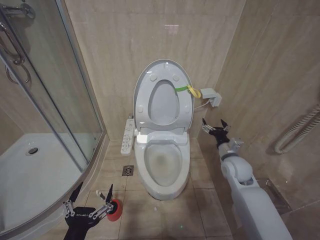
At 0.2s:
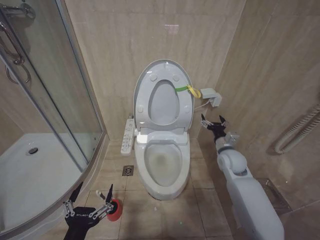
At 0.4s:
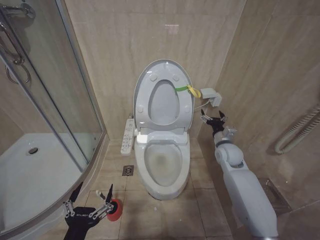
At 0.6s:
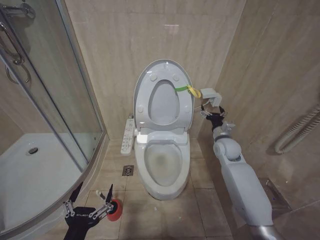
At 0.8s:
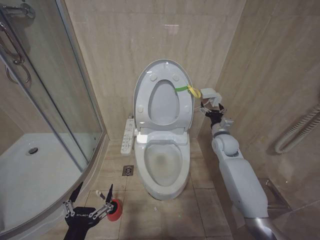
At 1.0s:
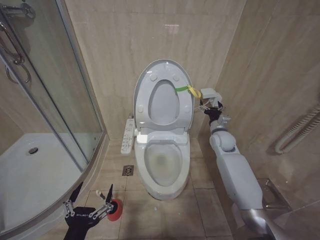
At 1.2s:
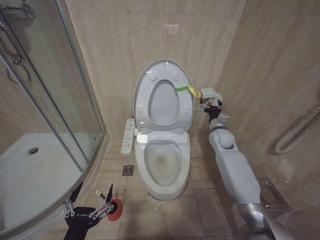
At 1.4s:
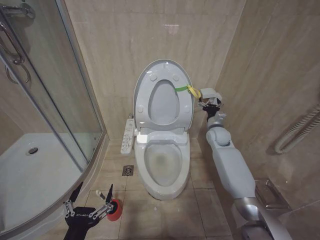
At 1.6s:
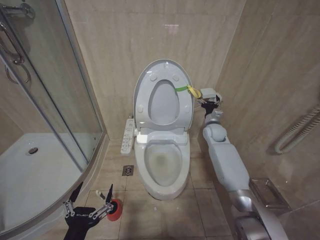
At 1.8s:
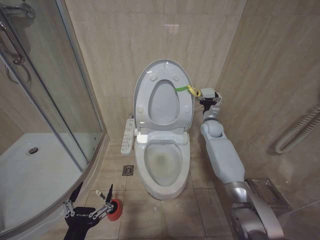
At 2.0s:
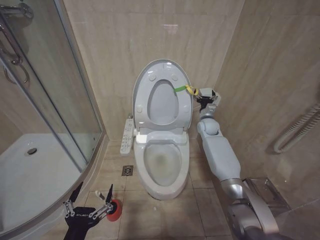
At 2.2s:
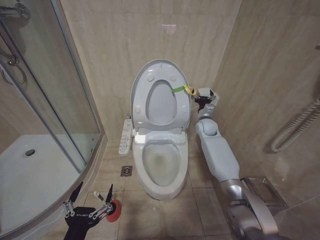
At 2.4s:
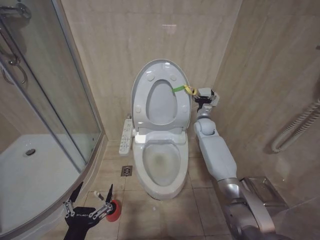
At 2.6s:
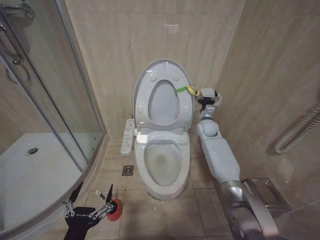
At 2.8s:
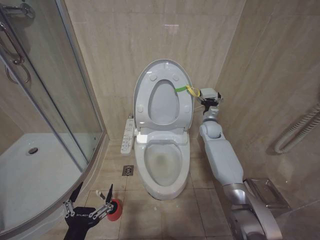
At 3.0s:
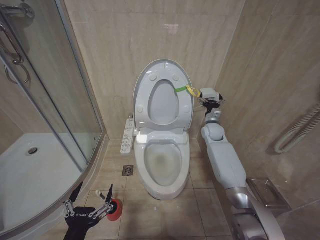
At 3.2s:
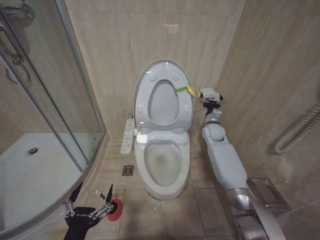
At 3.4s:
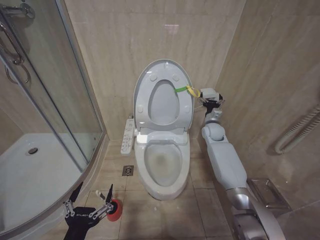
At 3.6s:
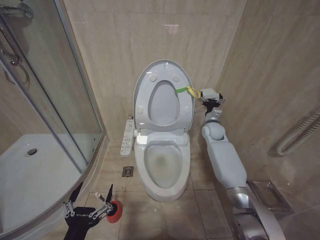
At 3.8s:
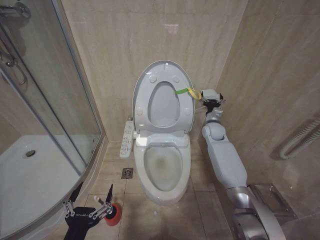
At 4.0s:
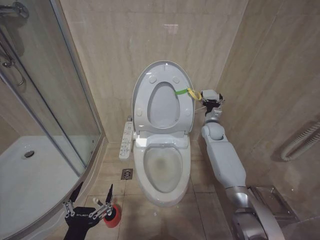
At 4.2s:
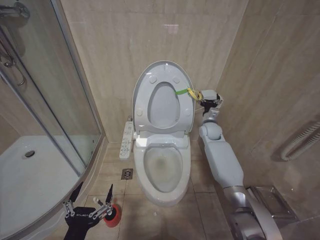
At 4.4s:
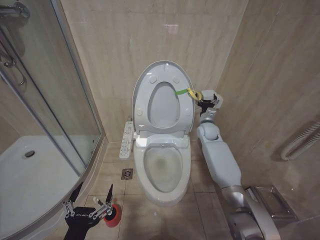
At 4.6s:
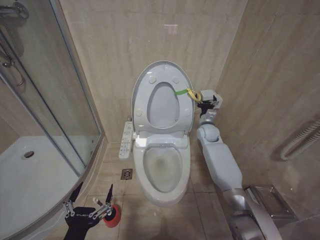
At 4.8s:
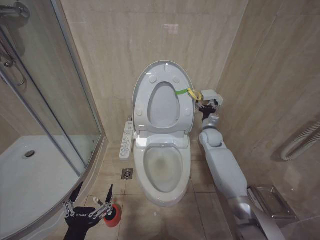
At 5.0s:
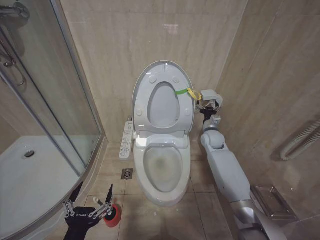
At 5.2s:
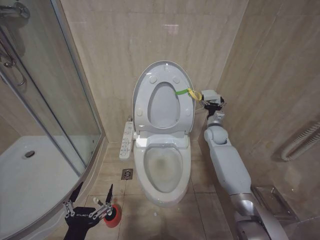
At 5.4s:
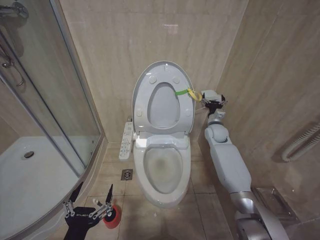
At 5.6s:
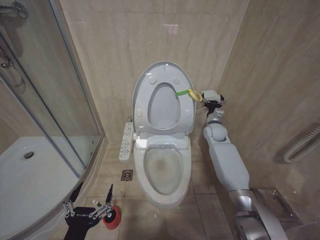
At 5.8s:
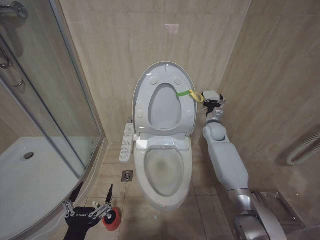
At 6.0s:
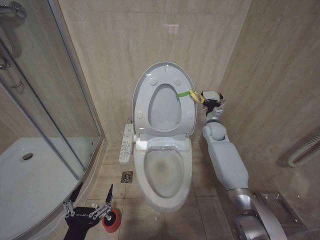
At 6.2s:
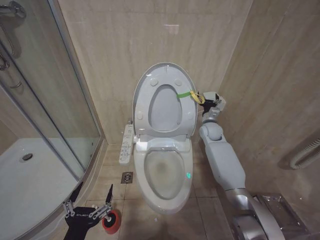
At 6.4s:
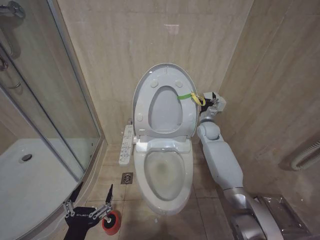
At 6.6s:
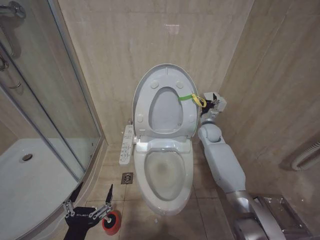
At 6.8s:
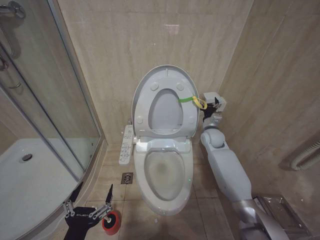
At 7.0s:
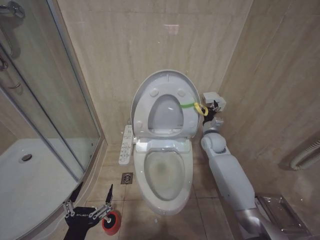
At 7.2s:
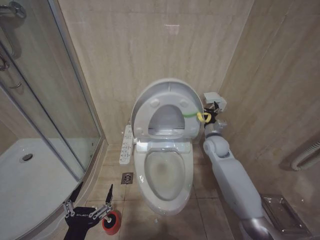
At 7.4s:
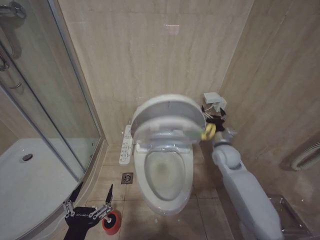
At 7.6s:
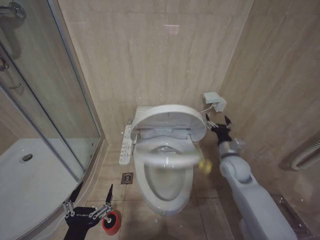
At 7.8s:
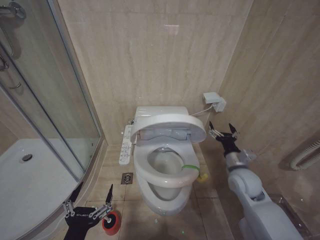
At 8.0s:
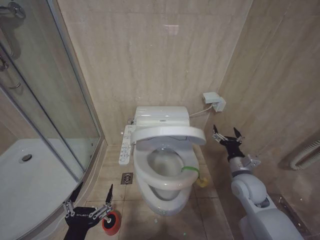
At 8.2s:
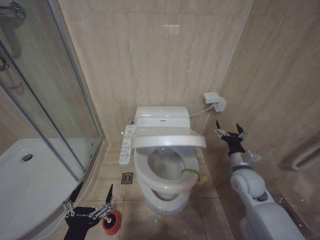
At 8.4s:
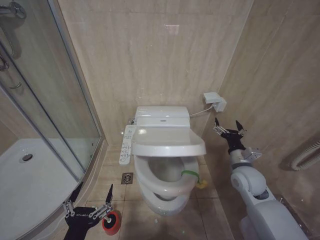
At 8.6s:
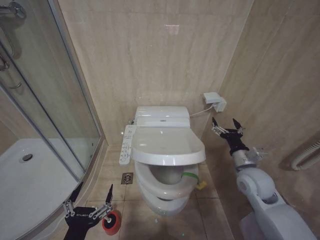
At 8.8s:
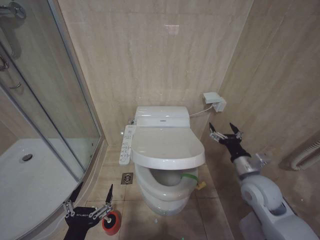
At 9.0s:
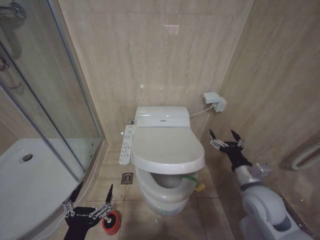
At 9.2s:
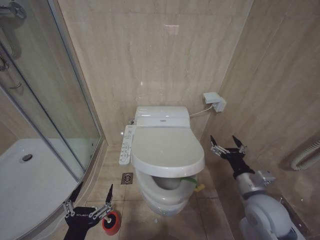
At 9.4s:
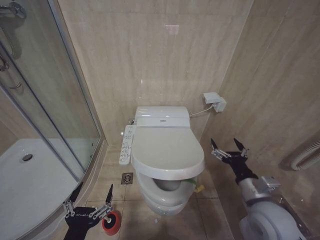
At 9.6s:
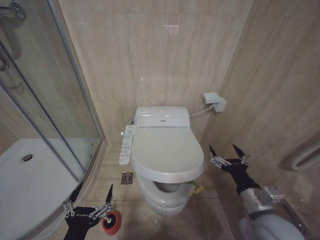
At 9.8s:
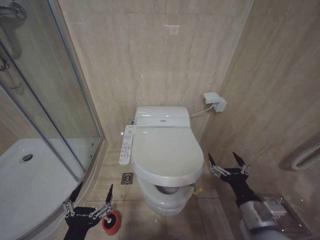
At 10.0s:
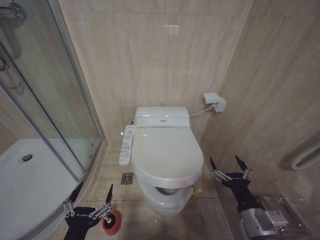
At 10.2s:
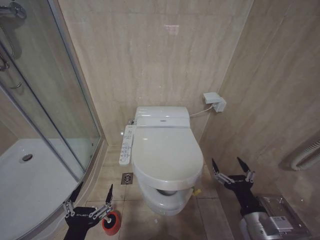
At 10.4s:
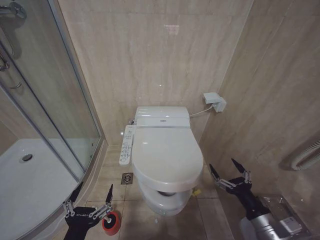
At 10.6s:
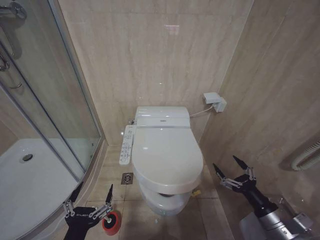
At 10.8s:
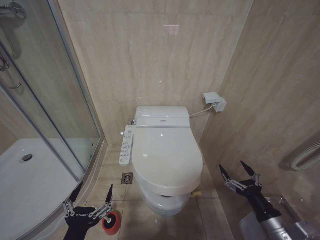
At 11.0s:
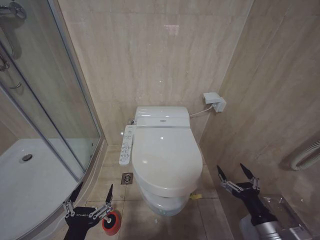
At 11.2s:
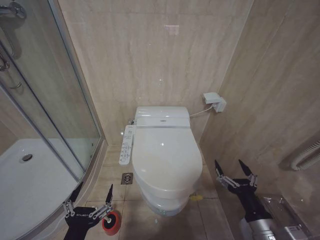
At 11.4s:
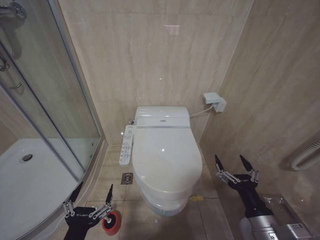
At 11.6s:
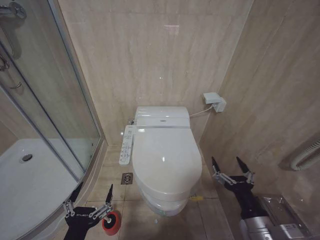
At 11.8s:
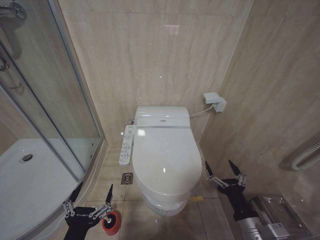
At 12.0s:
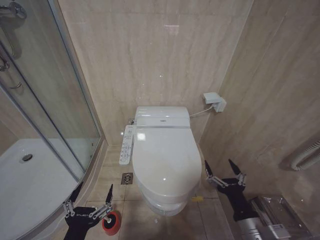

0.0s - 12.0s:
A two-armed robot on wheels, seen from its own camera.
Task of the whole recording: Open the toilet lid, clean the toilet bowl with a toilet brush, close the toilet lid, and flush.
0.0s - 1.6s: The right gripper shifts some 20 cm forward.
1.6s - 6.0s: The grippers move only a little.
6.0s - 7.6s: The right gripper is displaced backward by some 15 cm.
7.6s - 9.0s: The right gripper moves backward, approximately 15 cm.
9.0s - 10.4s: The right gripper moves backward and downward, roughly 15 cm.
10.4s - 12.0s: The right gripper travels to the left by approximately 5 cm.

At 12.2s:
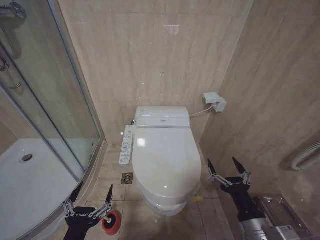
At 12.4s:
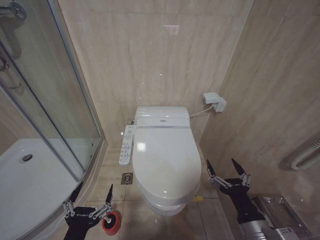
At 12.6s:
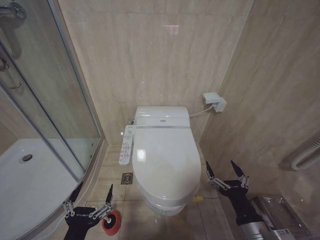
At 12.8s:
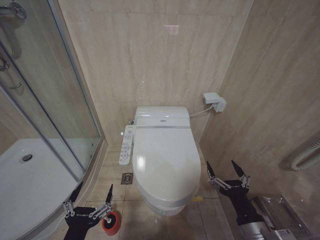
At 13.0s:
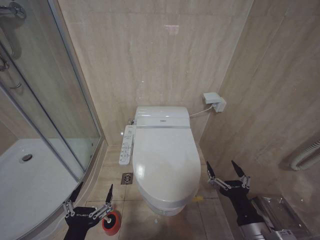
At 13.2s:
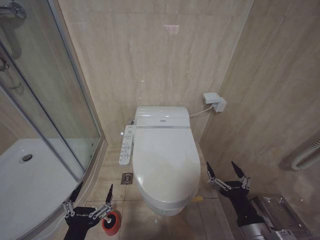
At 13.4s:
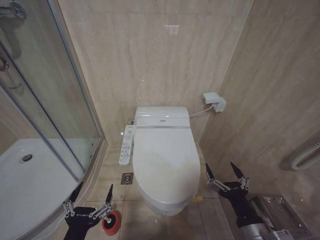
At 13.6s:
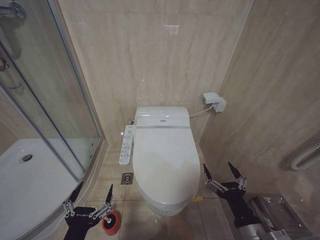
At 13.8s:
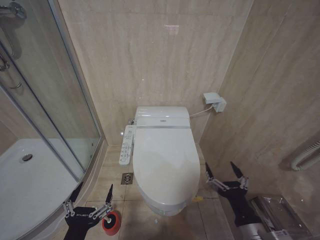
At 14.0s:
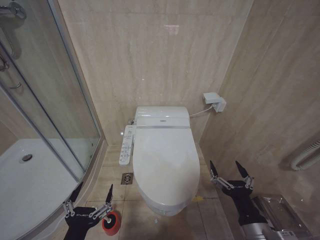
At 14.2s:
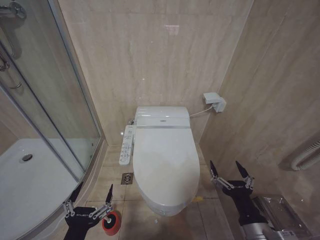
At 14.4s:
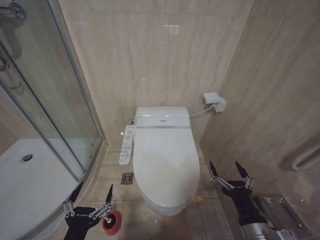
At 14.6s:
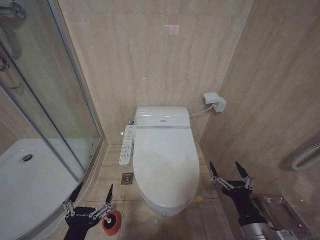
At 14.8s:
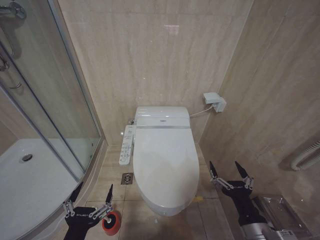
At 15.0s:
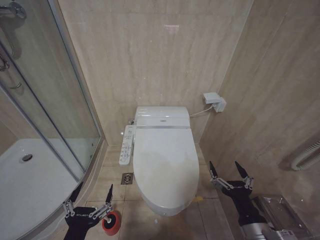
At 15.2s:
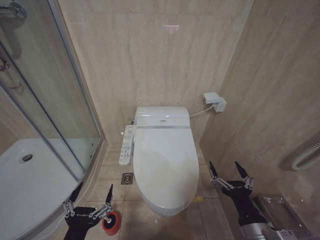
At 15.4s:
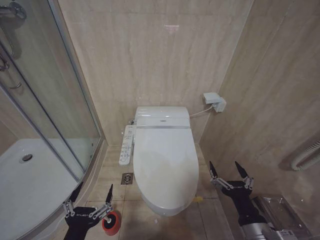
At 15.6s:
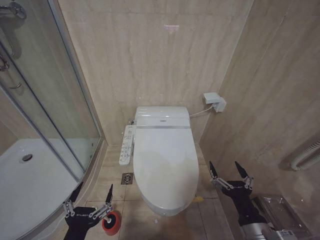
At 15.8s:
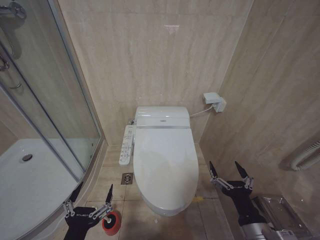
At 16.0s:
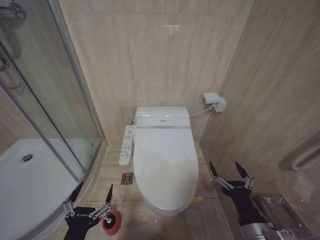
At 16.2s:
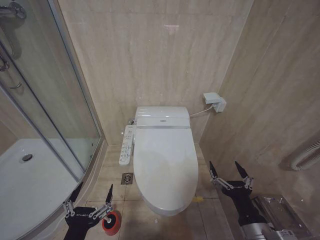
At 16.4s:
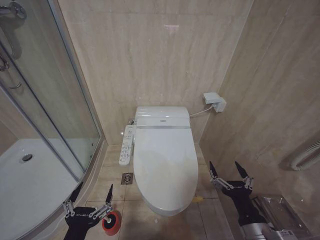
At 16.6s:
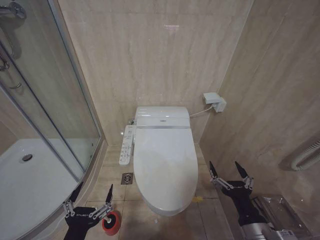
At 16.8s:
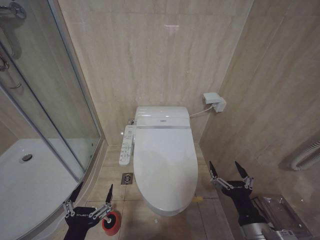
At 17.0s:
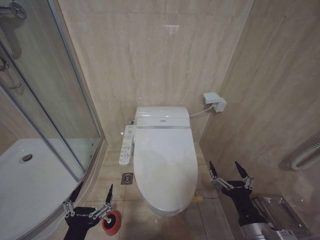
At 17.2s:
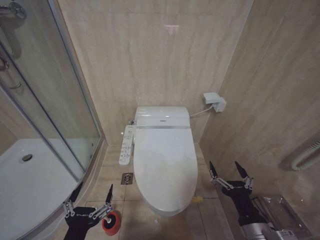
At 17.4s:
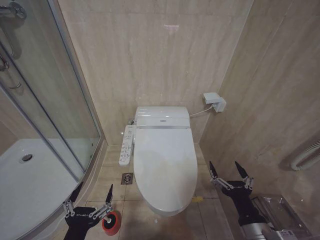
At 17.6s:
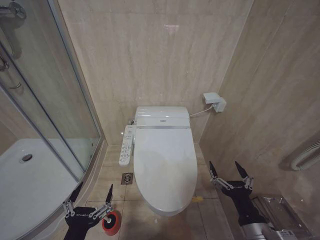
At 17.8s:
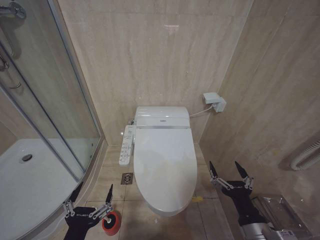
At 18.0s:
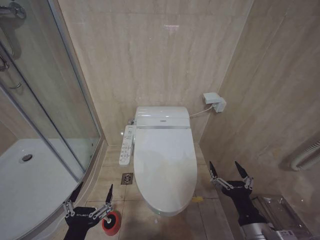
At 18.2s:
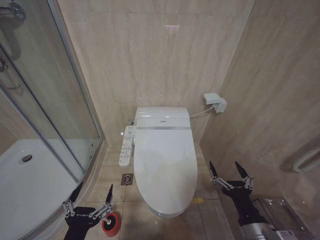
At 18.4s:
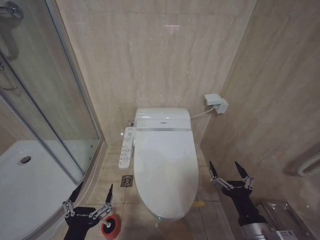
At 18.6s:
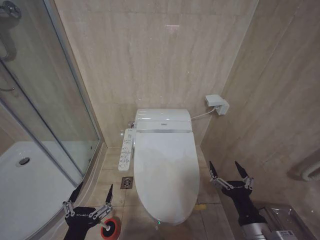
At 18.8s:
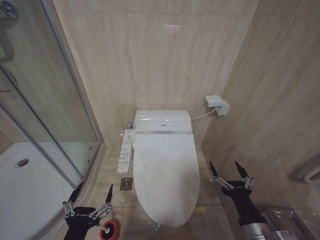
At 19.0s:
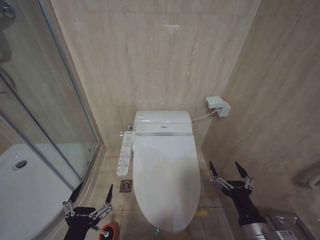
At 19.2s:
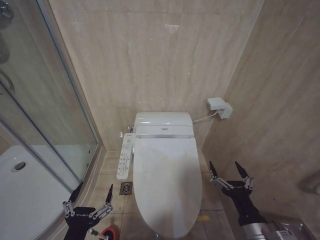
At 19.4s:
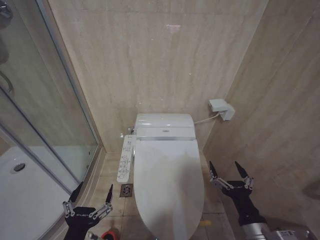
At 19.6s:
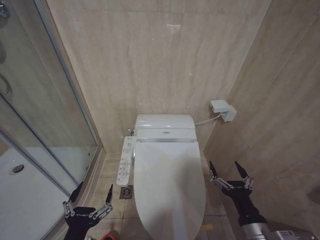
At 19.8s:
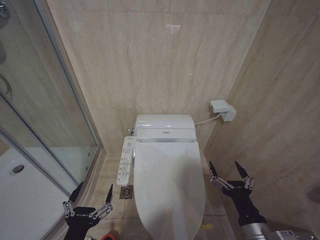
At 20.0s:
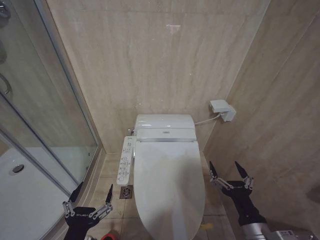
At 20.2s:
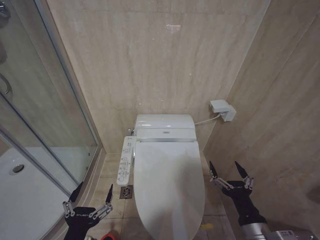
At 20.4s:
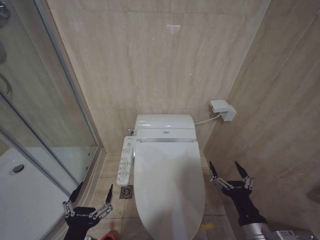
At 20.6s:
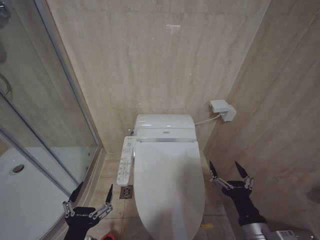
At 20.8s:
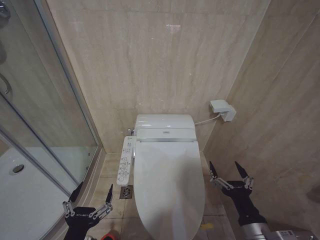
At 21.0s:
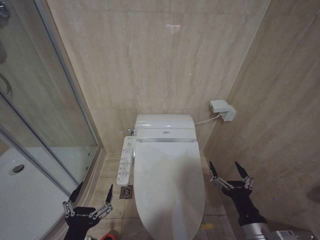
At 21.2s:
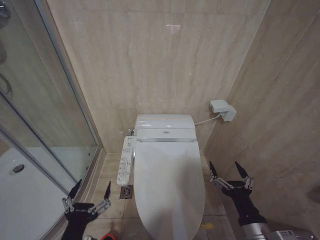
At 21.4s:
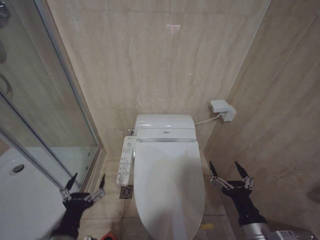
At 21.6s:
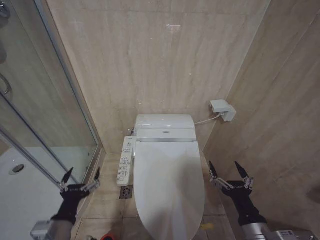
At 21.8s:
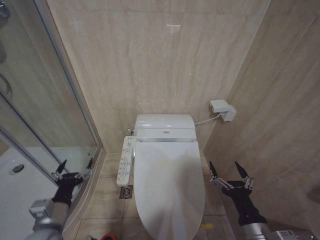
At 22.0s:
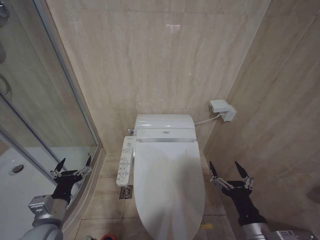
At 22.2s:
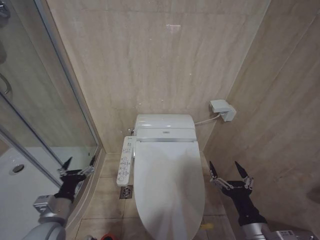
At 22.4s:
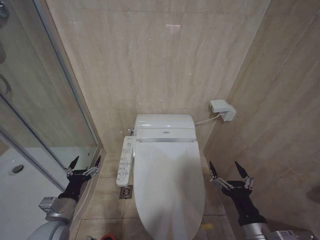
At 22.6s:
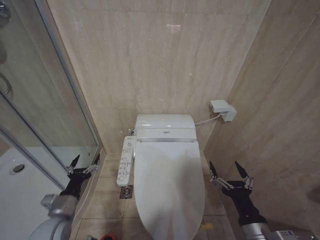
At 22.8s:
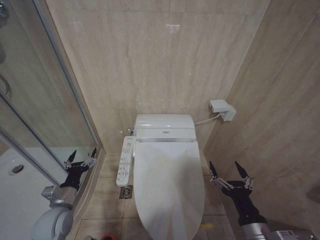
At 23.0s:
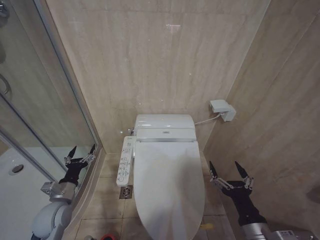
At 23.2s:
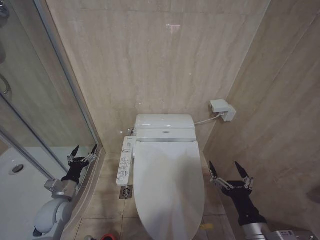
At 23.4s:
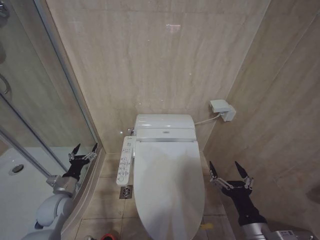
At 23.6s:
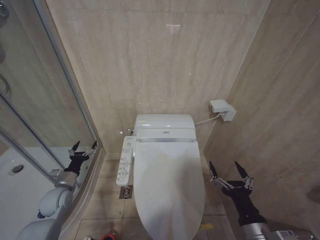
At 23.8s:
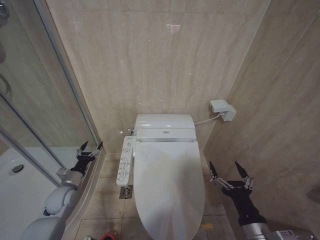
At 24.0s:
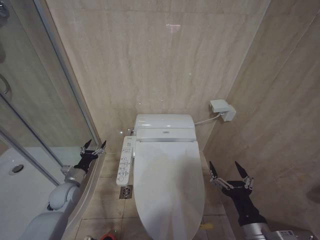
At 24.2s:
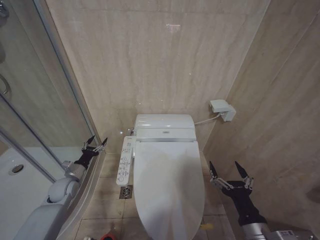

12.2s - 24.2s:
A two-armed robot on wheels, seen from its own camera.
Task of the whole recording: Open the toilet lid, clean the toilet bowl with a toilet brush, close the toilet lid, and flush.
12.2s - 13.8s: The grippers stay close to where they were, moving slightly.
13.8s - 21.2s: Both grippers stay put.
21.2s - 22.6s: The left gripper heads forward and to the left, covering approximately 20 cm.
22.6s - 24.2s: The left gripper heads forward, covering roughly 15 cm.
